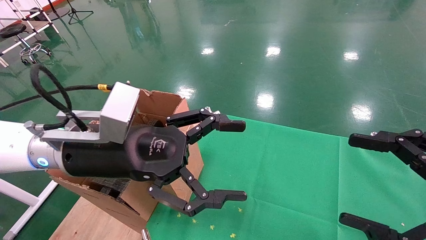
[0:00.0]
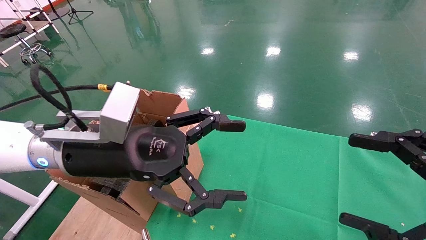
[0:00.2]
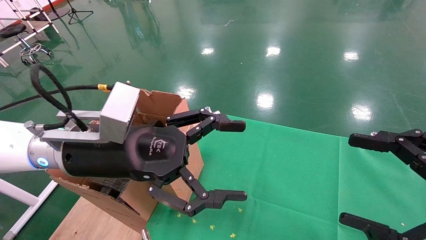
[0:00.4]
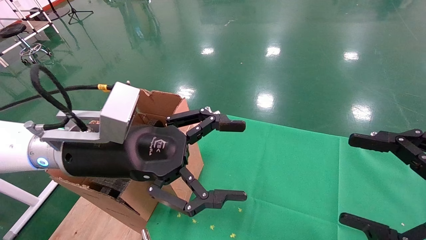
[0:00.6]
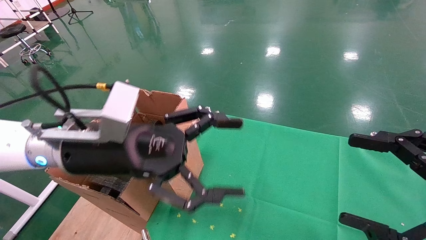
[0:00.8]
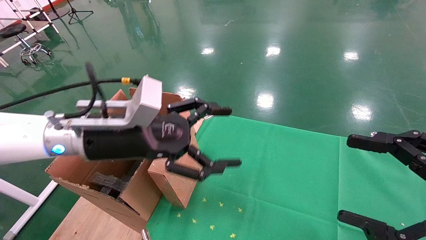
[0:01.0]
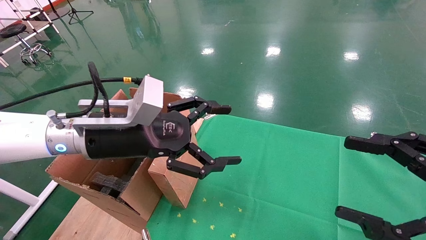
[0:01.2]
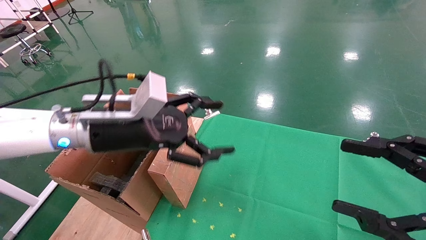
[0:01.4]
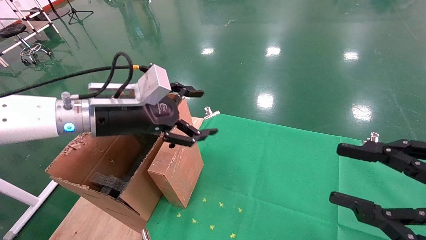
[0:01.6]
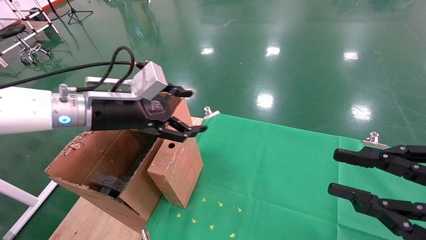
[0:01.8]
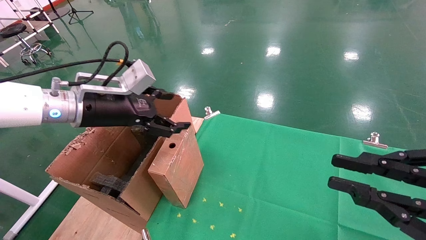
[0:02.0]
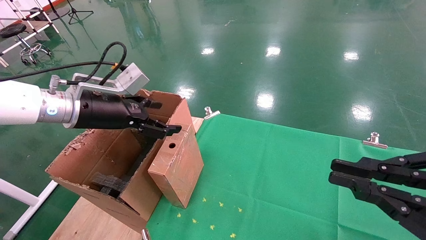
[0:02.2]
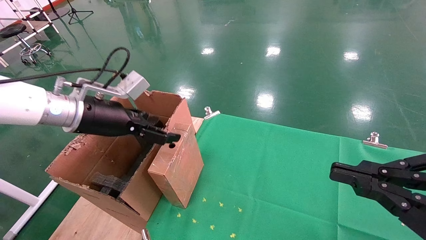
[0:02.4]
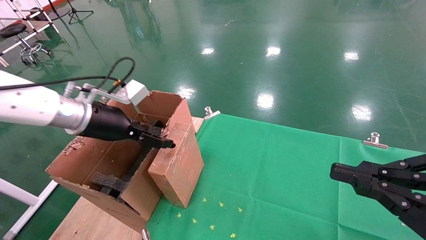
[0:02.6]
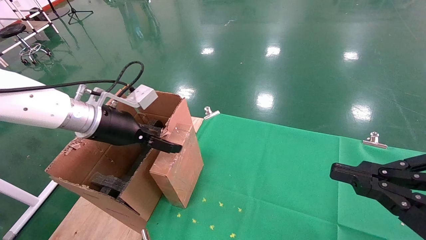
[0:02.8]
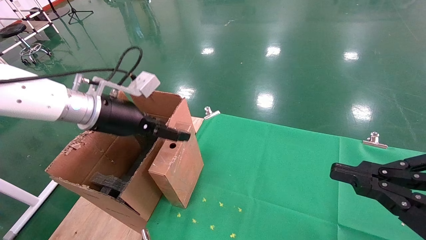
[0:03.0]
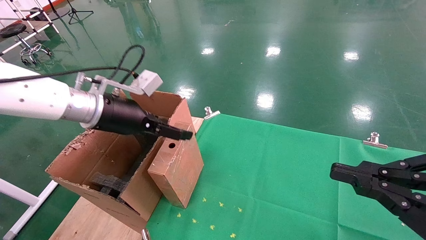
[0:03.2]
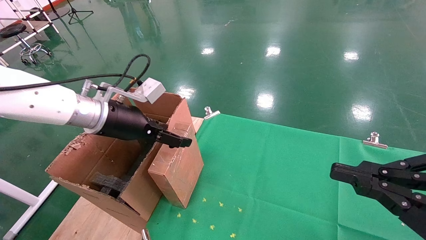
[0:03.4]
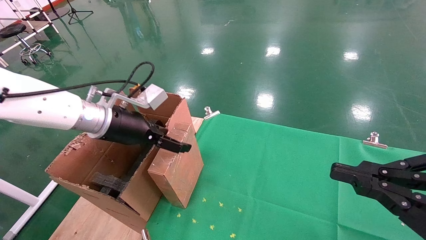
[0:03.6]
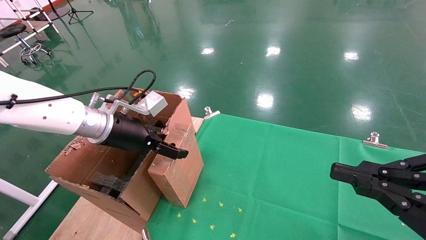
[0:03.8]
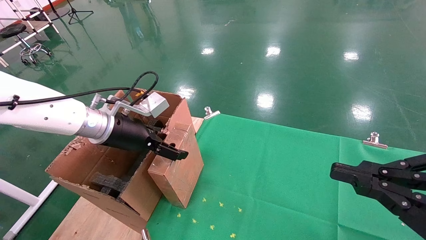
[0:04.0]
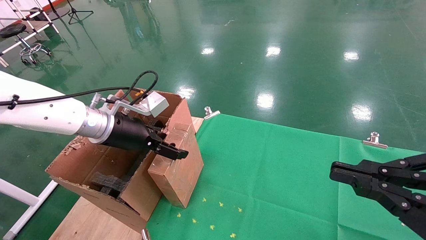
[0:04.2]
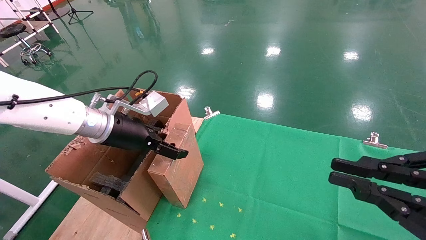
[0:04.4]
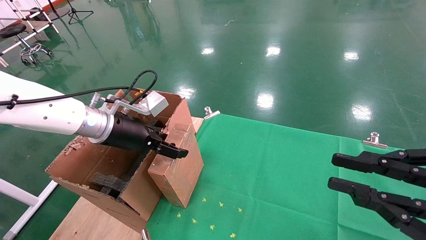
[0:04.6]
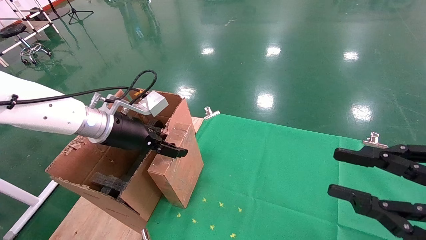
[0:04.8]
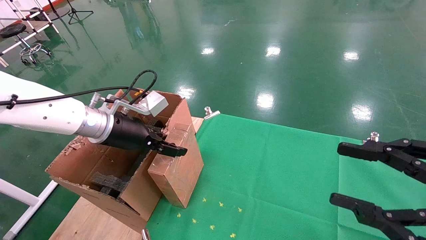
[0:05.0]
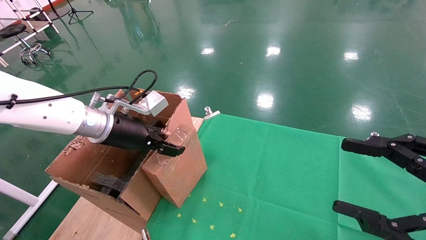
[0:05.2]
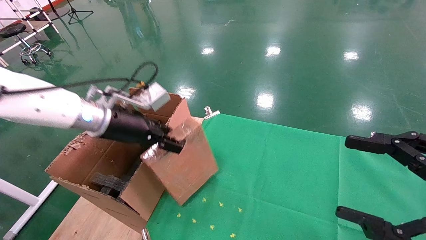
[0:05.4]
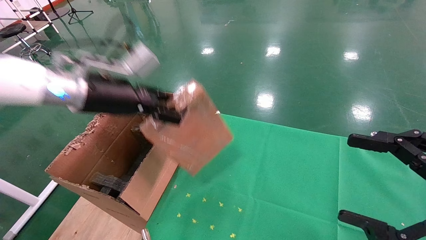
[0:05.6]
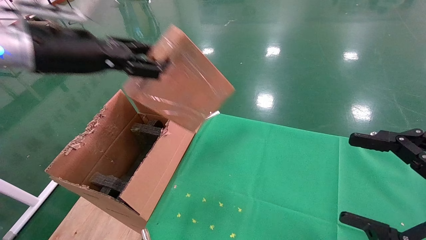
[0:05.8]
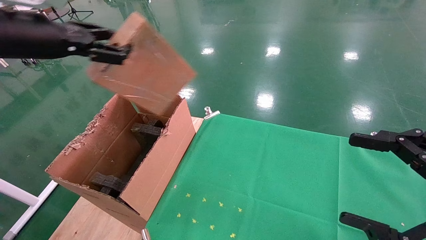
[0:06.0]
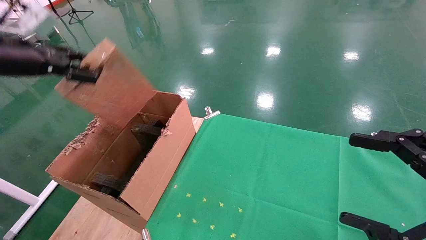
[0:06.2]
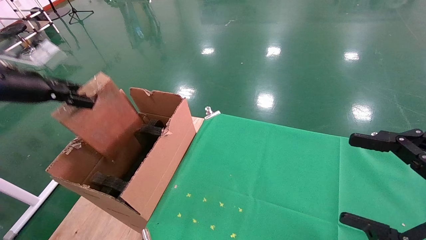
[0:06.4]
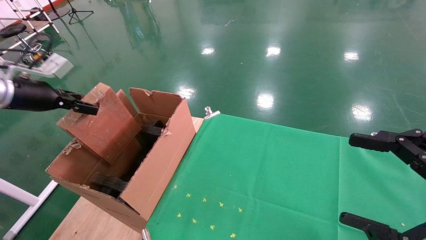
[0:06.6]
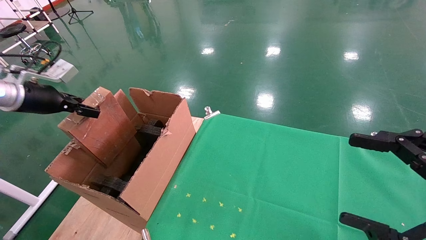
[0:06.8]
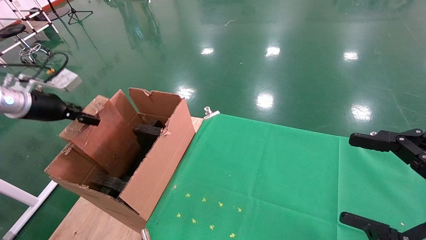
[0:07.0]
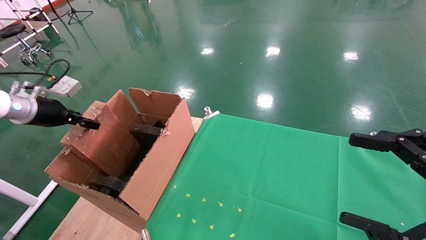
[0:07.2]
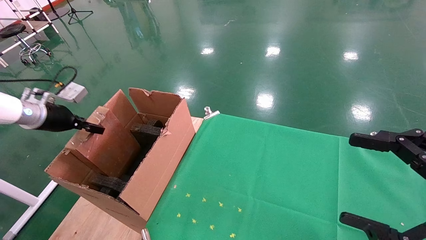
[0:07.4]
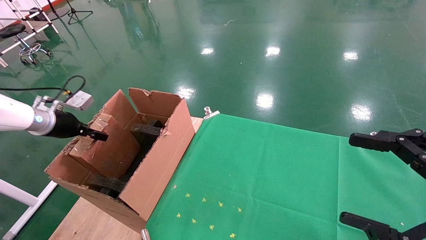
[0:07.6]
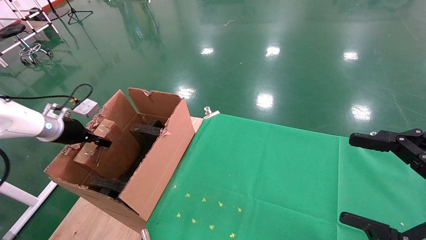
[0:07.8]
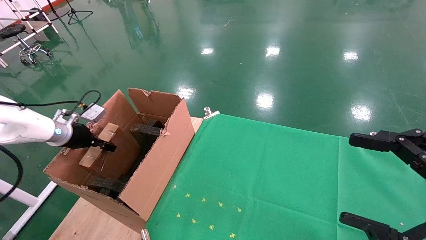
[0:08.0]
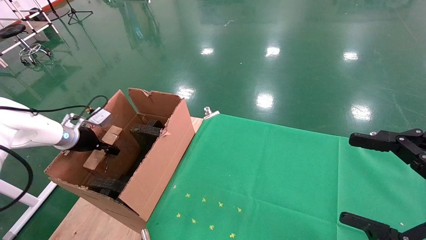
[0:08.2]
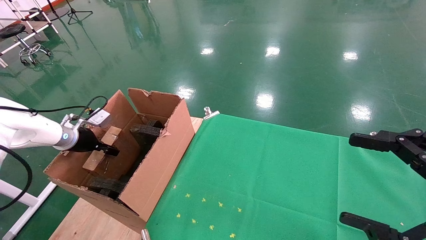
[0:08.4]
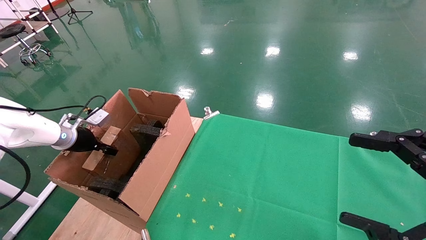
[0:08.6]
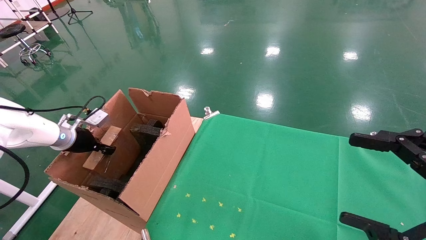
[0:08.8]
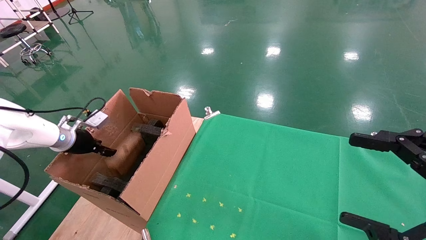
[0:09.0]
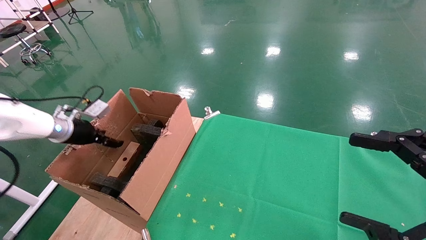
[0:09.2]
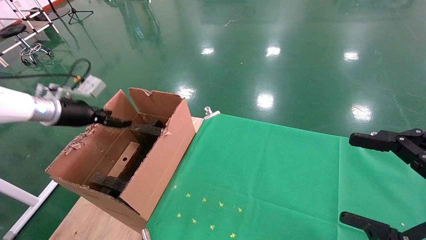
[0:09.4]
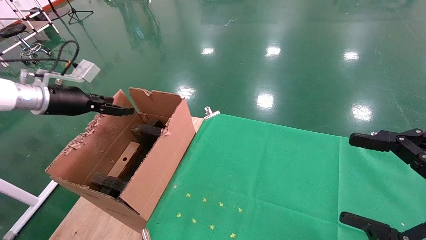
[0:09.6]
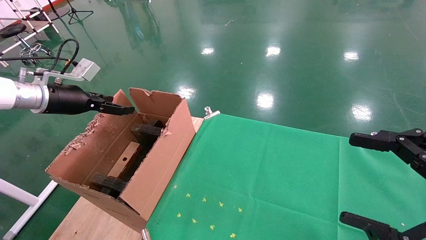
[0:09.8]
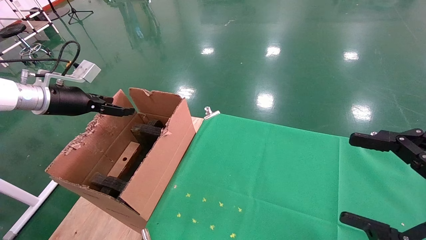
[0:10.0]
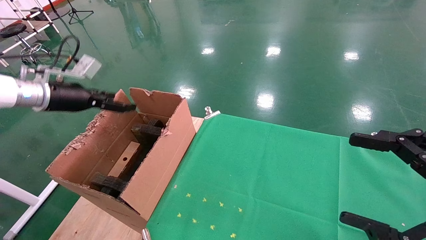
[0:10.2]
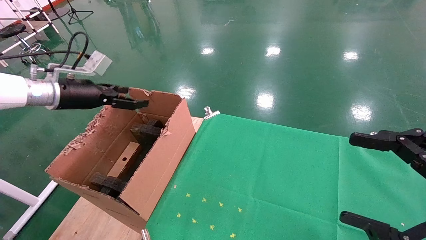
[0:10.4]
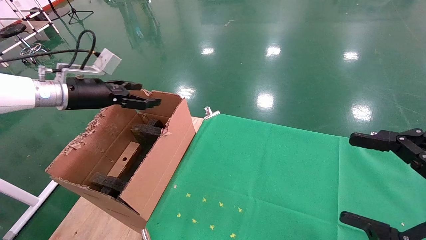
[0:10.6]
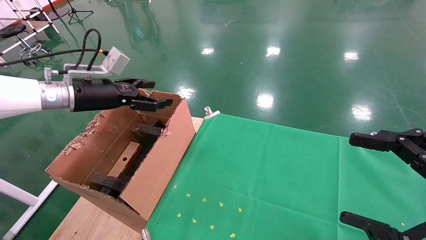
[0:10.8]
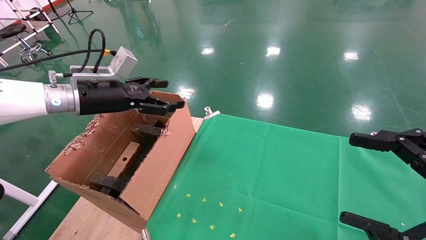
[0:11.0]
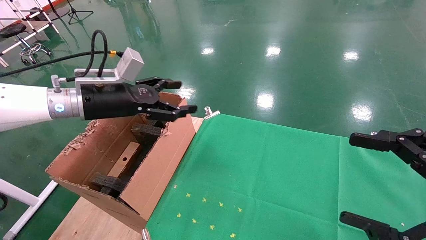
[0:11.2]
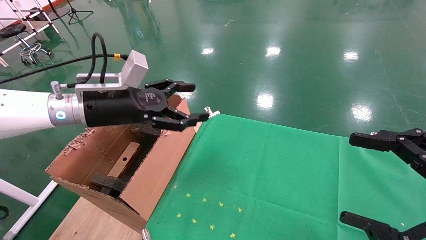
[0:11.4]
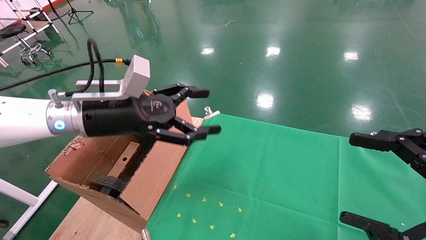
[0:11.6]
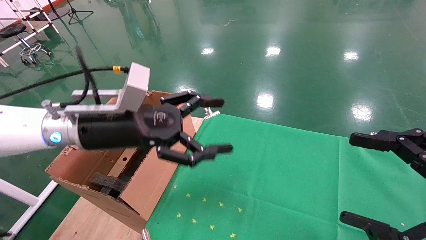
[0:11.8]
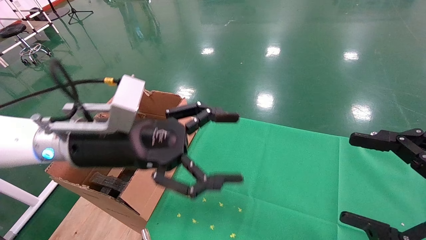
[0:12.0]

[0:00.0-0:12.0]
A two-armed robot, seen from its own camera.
Task of the whole recording: using a robotic arm to pick up a cardboard box and palace it the carton.
Step, 0:01.0 to 0:04.6: Pick up the mouse and the power cord paper box.
Step, 0:04.8 to 0:09.0: Place the mouse and the power cord paper box into the container.
0:00.0 to 0:01.6: The left gripper is displaced forward by some 5 cm, while the right gripper closes.
0:01.6 to 0:03.0: The right gripper closes up.
0:03.0 to 0:04.4: The grippers move only a little.
0:04.4 to 0:06.0: The right gripper opens up; the left gripper moves upward and to the left, some 20 cm, and closes up.
0:06.0 to 0:07.6: The left gripper heads downward, to the left and forward, covering about 25 cm.
0:07.6 to 0:09.0: The left gripper ends up approximately 5 cm from where it was.
0:09.0 to 0:10.4: The left gripper is displaced upward and to the right by about 15 cm, and opens its fingers.
0:10.4 to 0:12.0: The left gripper goes about 25 cm to the right and backward.

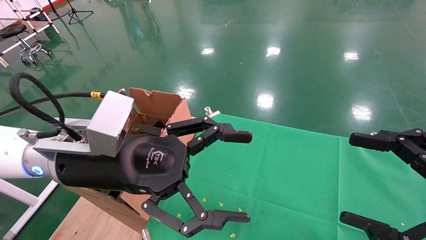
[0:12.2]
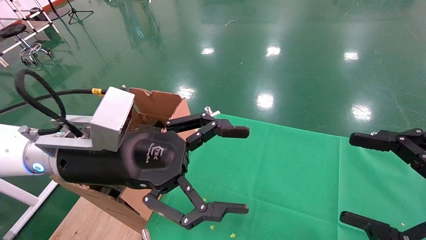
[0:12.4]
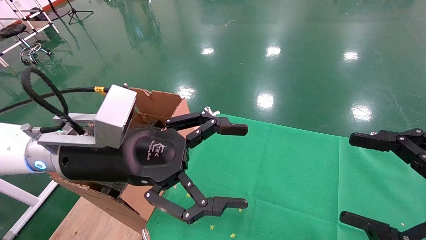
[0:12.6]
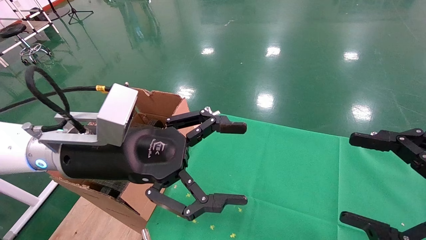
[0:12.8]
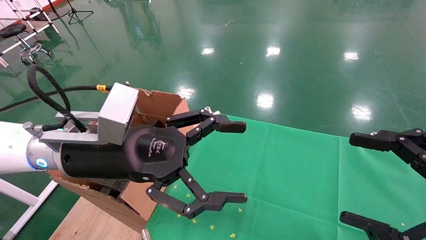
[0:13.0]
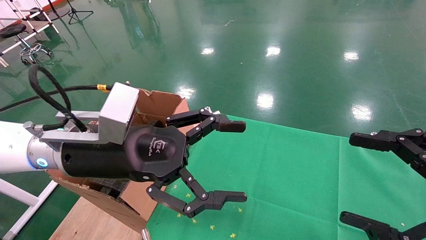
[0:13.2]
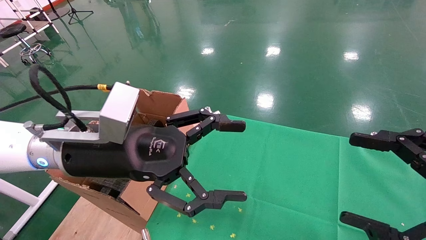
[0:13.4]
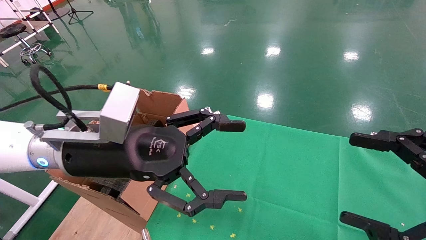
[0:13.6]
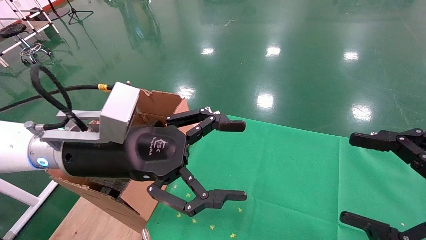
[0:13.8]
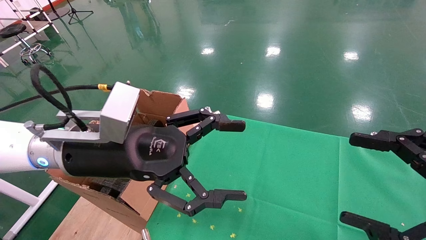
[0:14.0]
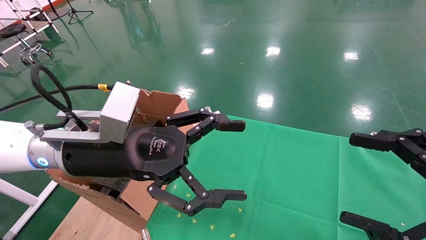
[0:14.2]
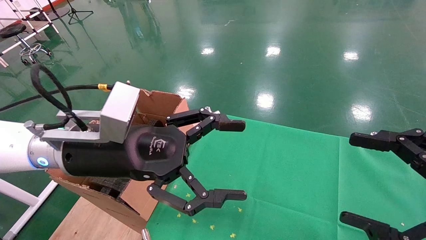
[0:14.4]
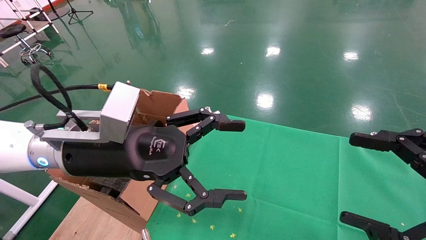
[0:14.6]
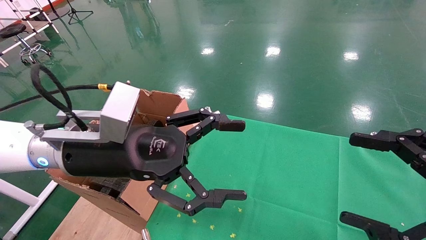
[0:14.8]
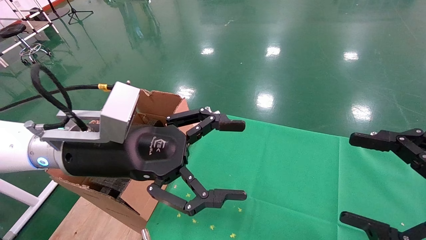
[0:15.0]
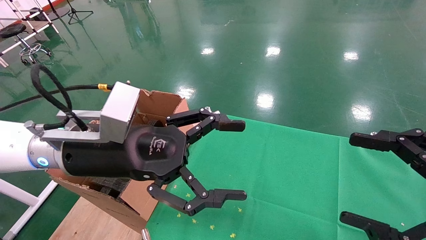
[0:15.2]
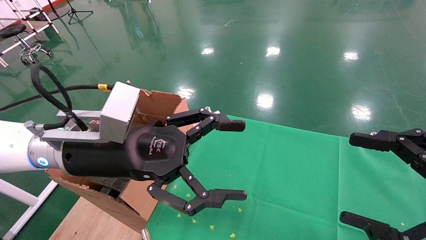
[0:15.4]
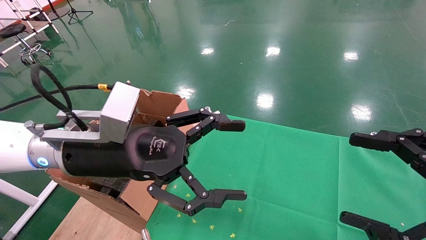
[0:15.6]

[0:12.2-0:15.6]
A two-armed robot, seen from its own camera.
Task of the whole recording: using a robotic arm to pick up a cardboard box and palace it the carton.
0:12.2 to 0:15.6: Neither gripper changes place.
